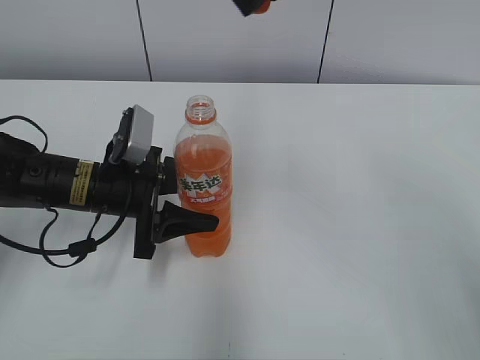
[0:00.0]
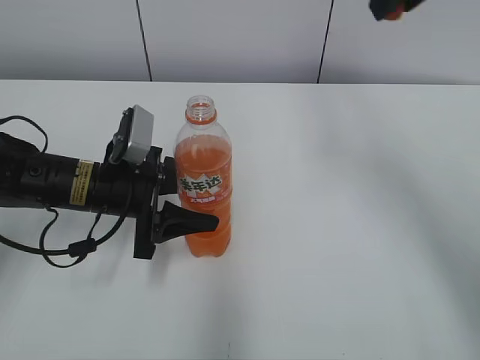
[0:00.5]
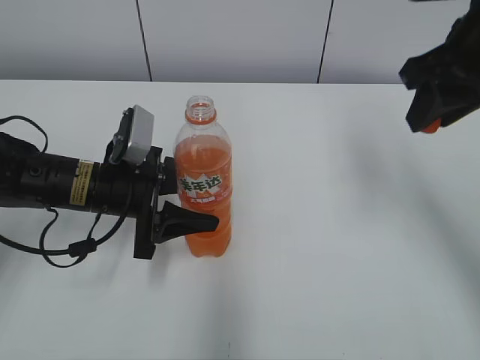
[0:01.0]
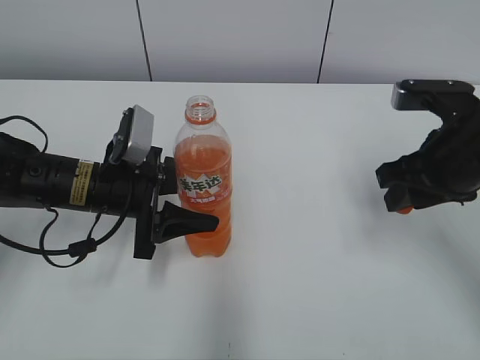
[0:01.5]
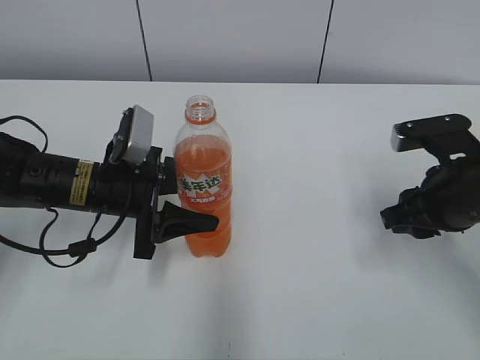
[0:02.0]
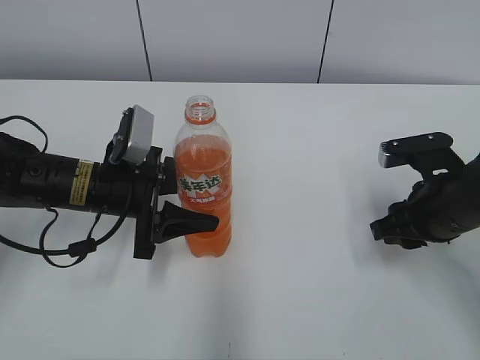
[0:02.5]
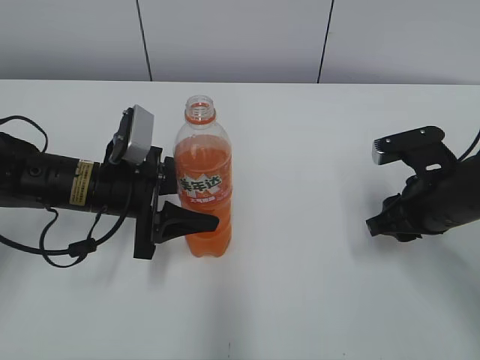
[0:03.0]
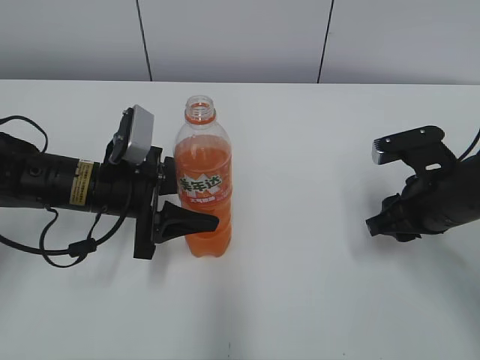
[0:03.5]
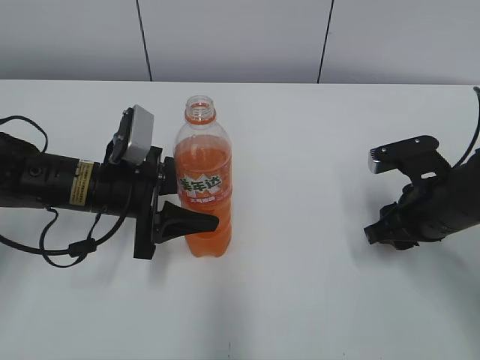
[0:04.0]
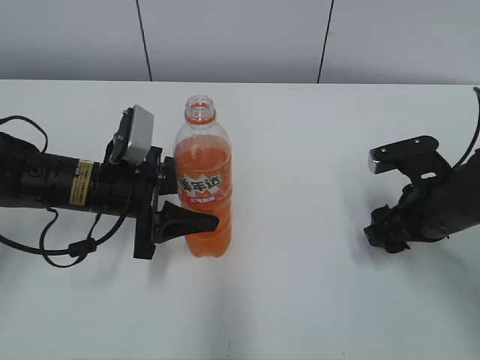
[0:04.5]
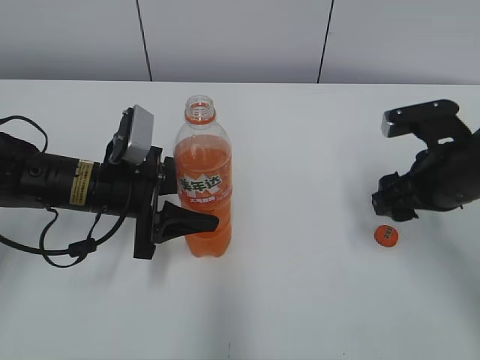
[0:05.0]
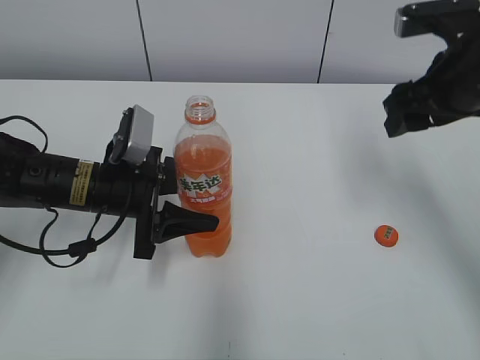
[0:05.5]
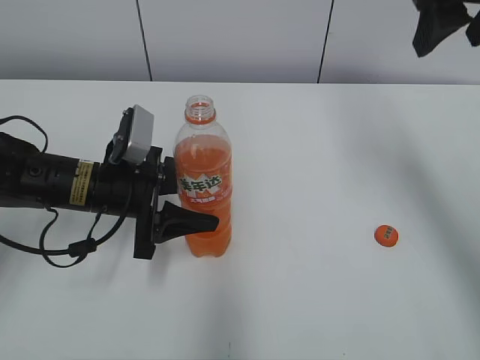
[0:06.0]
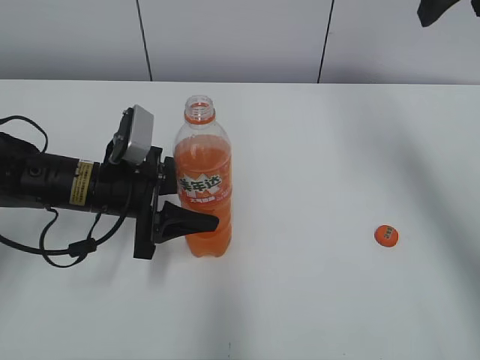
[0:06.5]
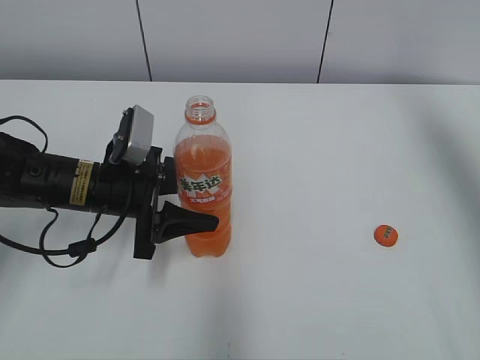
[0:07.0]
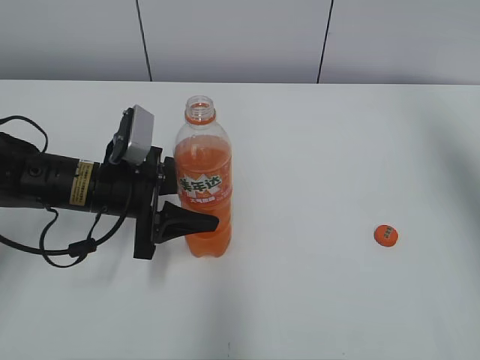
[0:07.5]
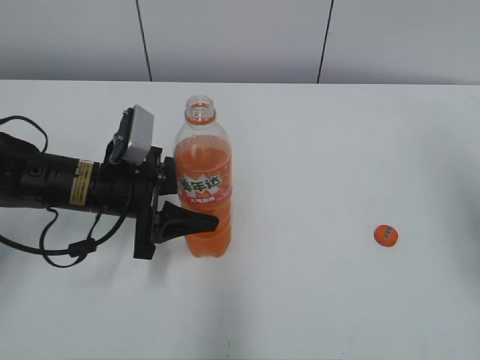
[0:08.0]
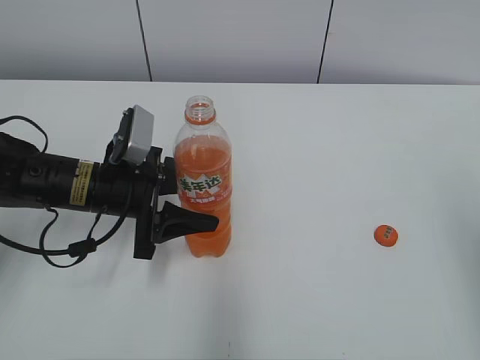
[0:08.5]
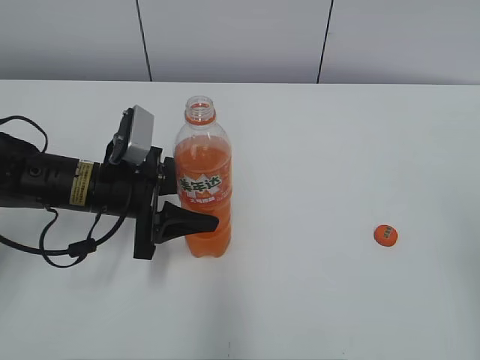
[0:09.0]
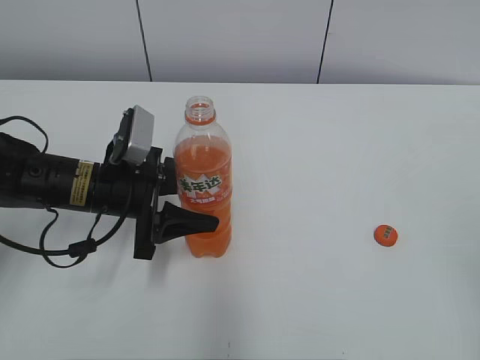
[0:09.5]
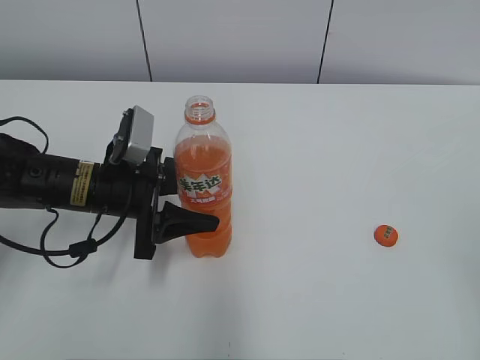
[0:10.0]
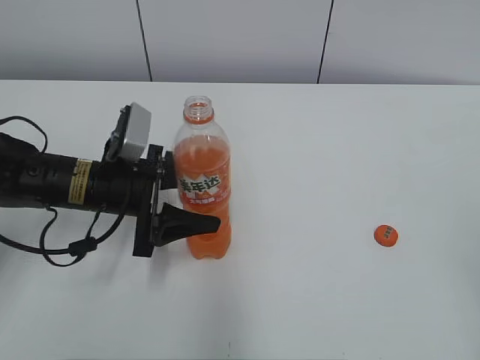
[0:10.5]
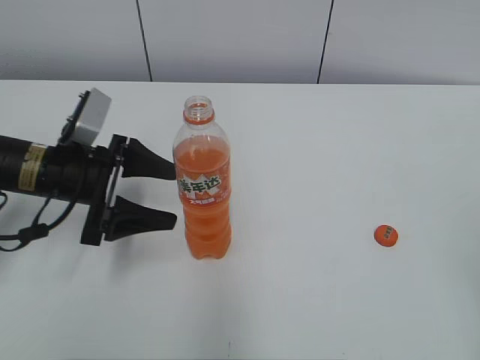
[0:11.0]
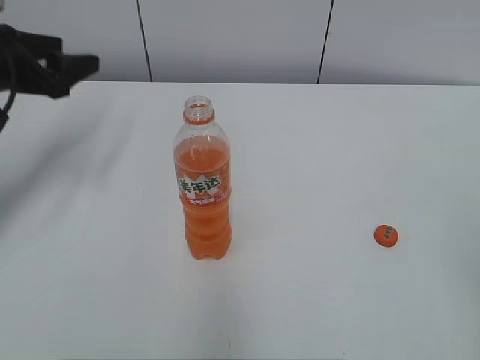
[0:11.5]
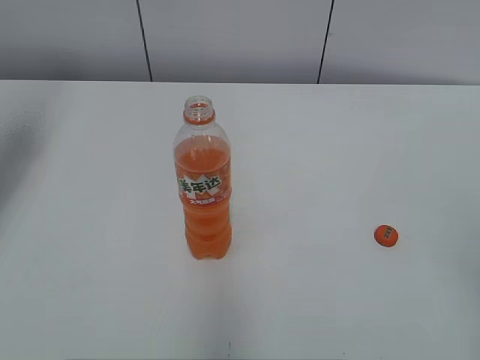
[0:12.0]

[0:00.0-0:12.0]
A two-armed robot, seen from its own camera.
Step, 0:00.0 to 0:04.5: Place the bottle cap on the right.
0:00.0 to 0:02.0: The right gripper goes some 30 cm downward and to the right.
0:02.0 to 0:04.0: The grippers make only small movements.
0:04.0 to 0:06.0: The right gripper is displaced upward by some 25 cm, and opens its fingers.
0:06.0 to 0:08.0: The right gripper shifts about 15 cm backward and to the right.
0:10.0 to 0:12.0: The left gripper is displaced to the left and upward by approximately 25 cm, and opens up.

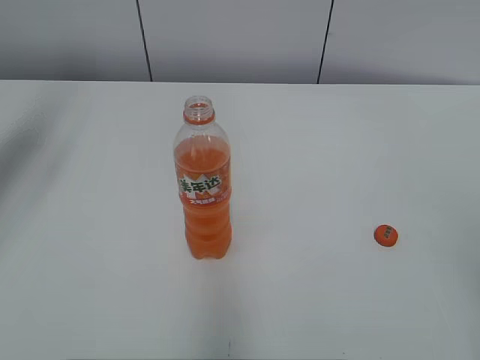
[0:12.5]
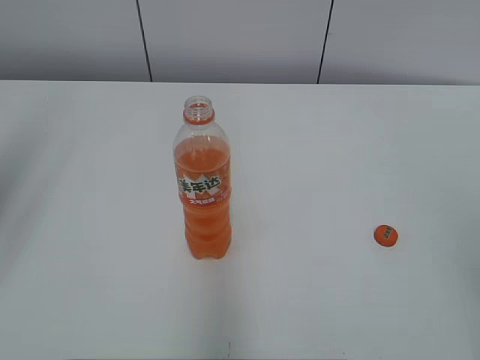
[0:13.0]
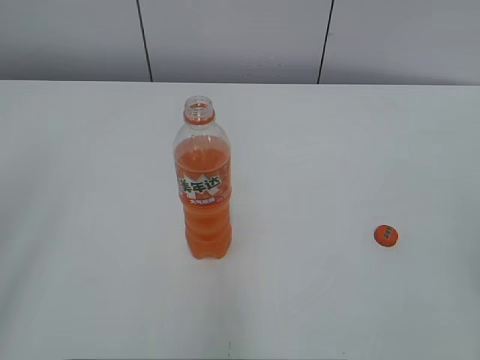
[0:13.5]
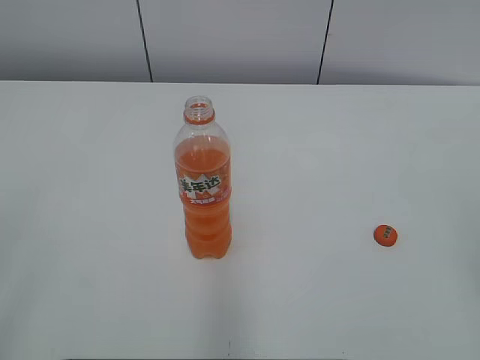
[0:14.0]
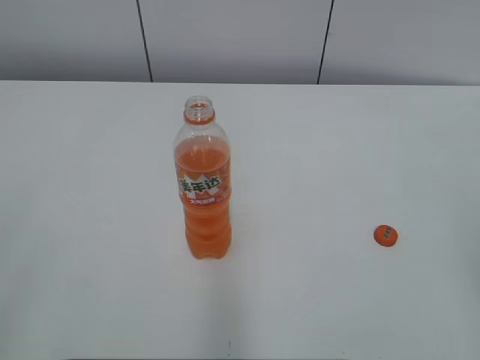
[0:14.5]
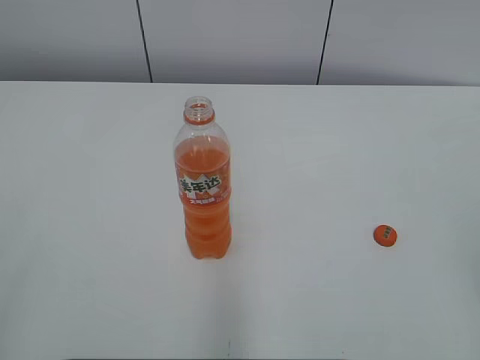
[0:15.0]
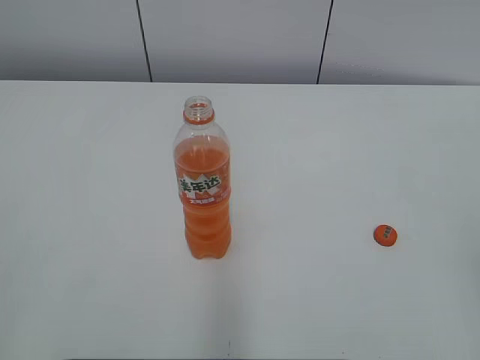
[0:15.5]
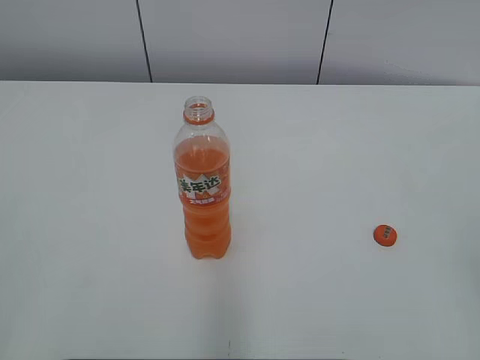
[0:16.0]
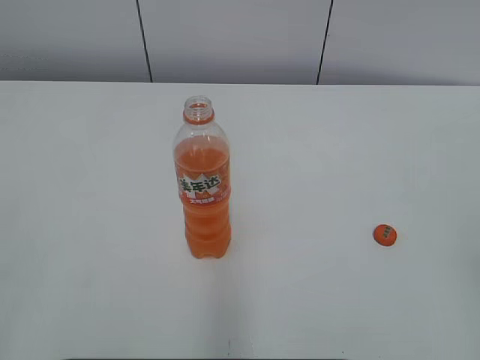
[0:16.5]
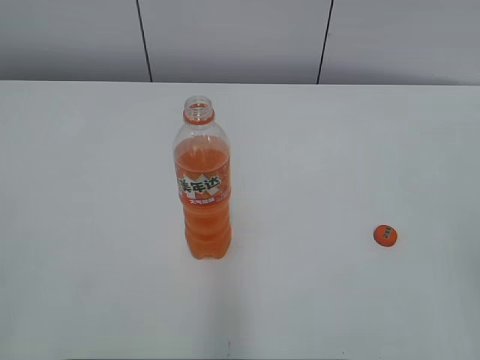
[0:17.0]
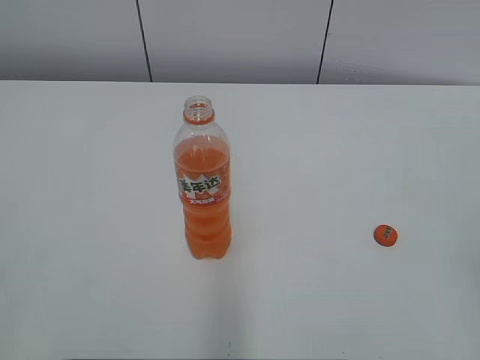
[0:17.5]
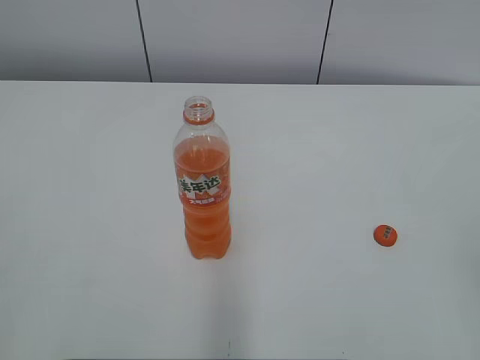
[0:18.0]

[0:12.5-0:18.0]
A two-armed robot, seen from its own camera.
0:12.5 to 0:14.5: The left gripper goes approximately 30 cm backward.
0:16.0 to 0:18.0: The two grippers keep their place.
